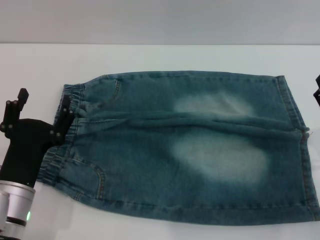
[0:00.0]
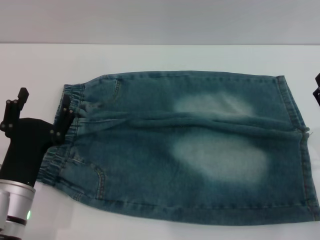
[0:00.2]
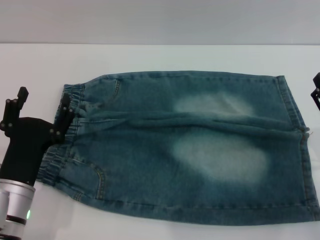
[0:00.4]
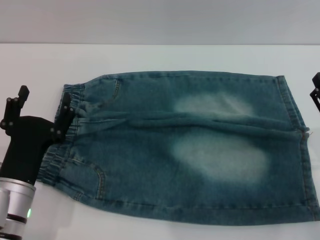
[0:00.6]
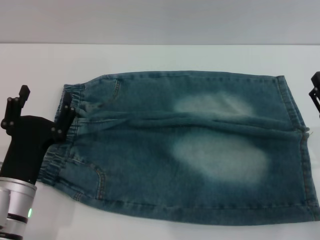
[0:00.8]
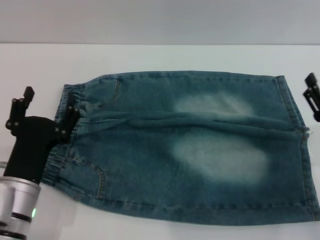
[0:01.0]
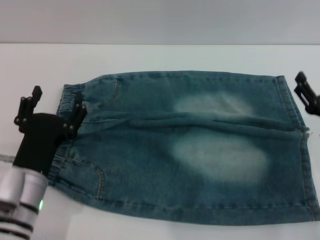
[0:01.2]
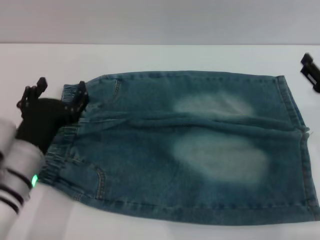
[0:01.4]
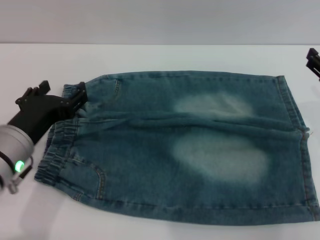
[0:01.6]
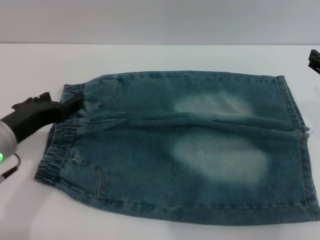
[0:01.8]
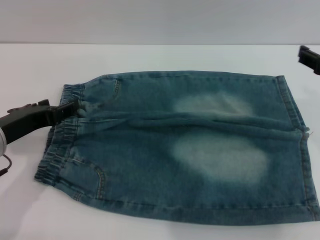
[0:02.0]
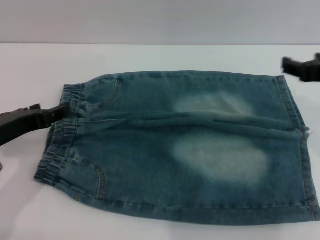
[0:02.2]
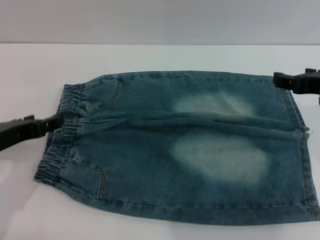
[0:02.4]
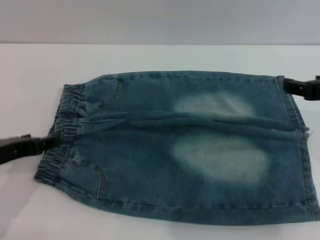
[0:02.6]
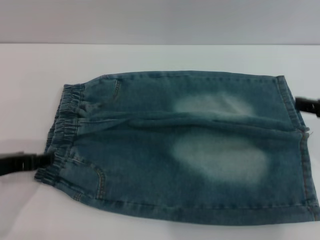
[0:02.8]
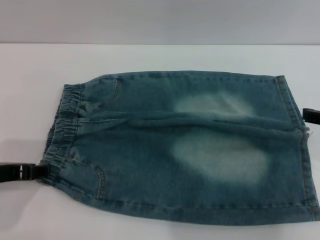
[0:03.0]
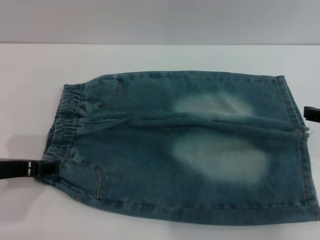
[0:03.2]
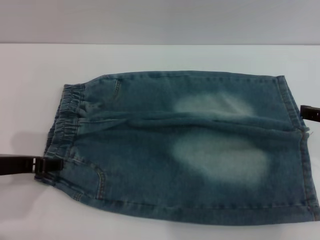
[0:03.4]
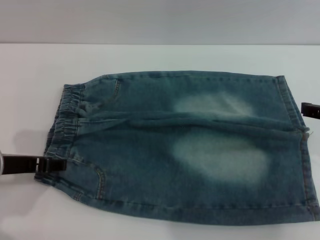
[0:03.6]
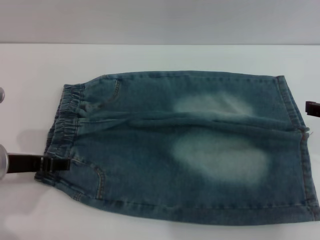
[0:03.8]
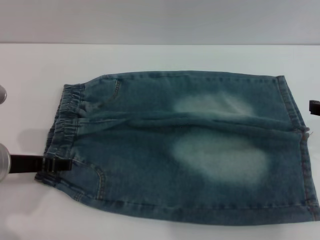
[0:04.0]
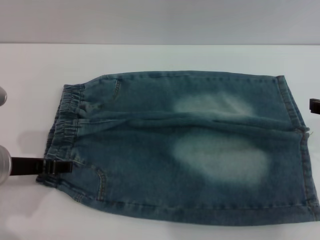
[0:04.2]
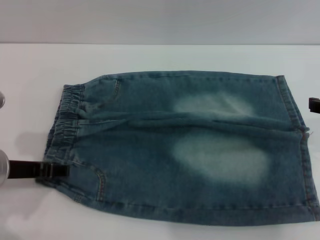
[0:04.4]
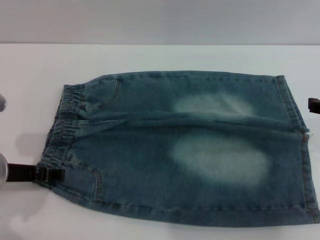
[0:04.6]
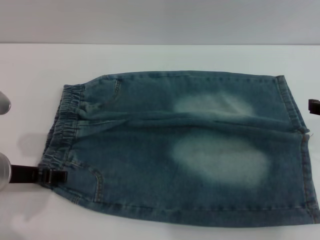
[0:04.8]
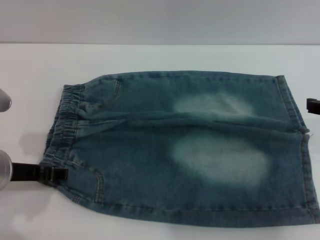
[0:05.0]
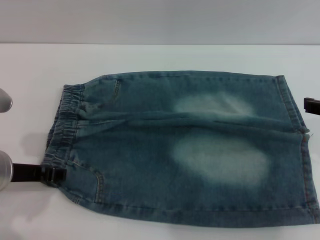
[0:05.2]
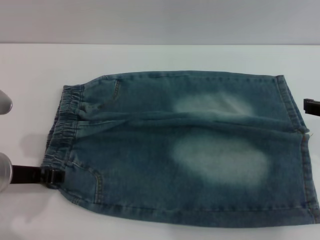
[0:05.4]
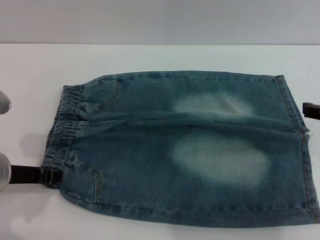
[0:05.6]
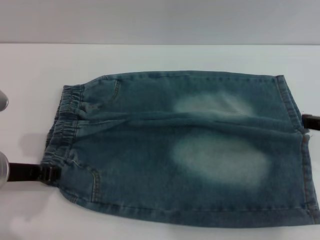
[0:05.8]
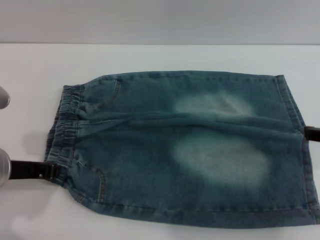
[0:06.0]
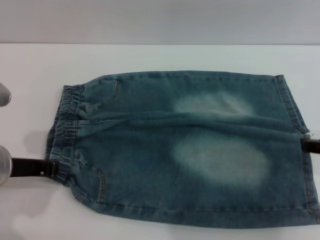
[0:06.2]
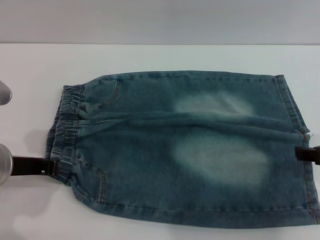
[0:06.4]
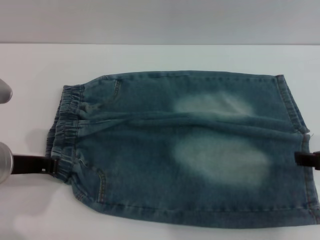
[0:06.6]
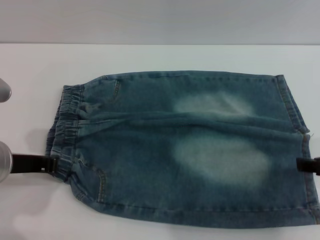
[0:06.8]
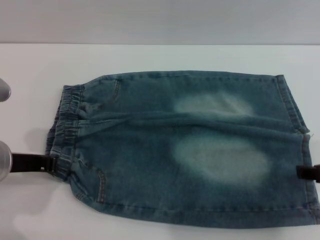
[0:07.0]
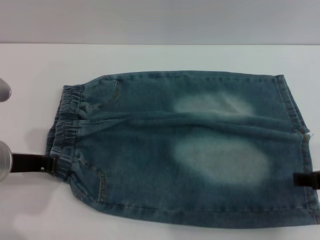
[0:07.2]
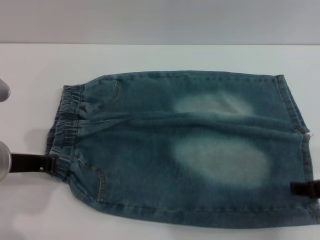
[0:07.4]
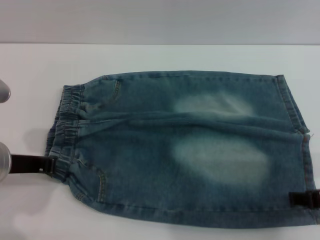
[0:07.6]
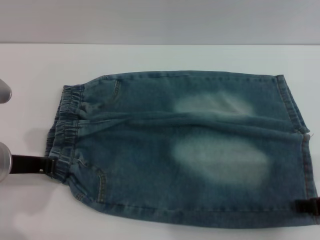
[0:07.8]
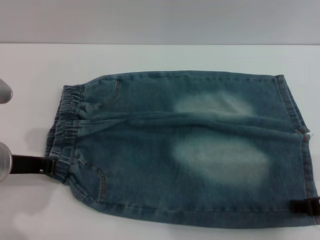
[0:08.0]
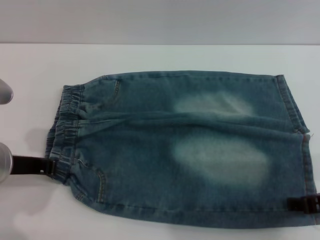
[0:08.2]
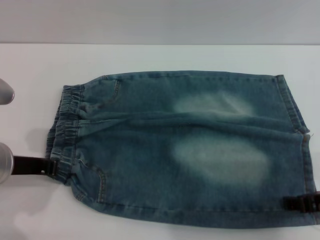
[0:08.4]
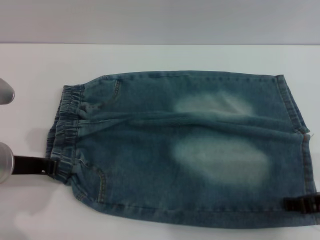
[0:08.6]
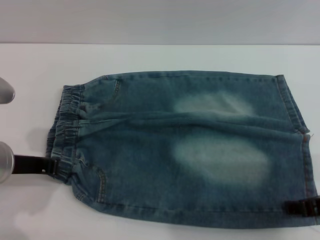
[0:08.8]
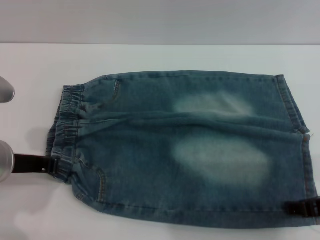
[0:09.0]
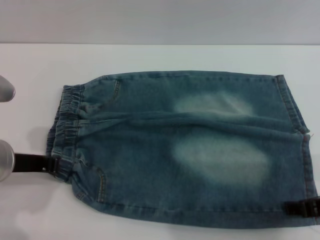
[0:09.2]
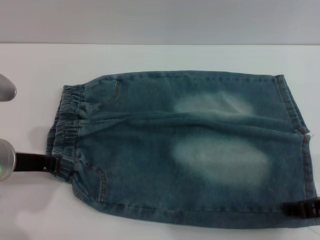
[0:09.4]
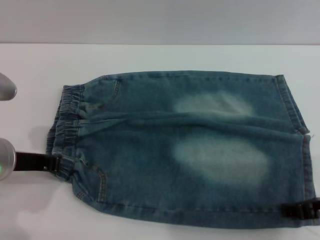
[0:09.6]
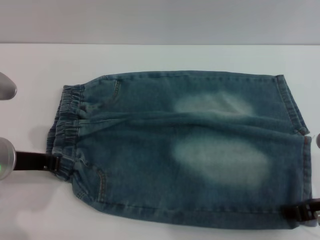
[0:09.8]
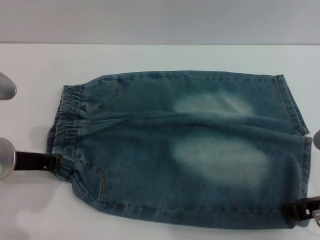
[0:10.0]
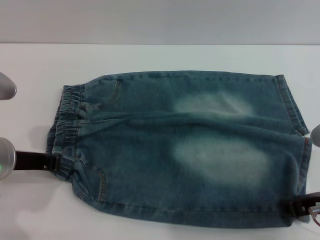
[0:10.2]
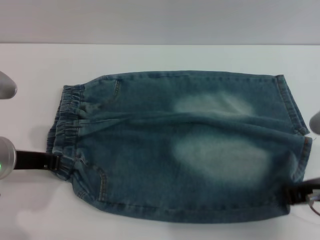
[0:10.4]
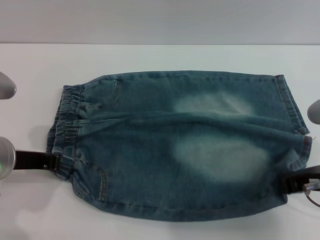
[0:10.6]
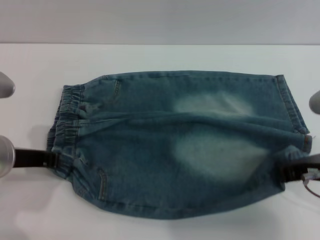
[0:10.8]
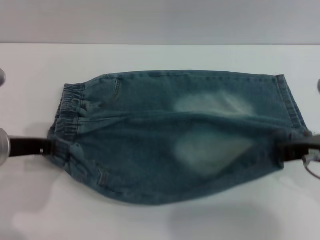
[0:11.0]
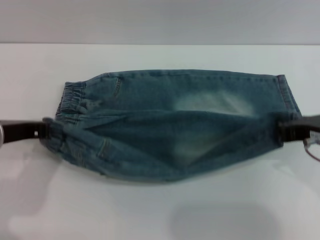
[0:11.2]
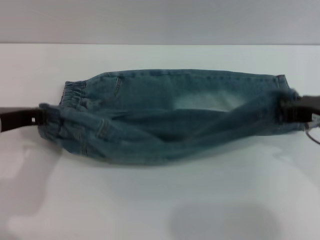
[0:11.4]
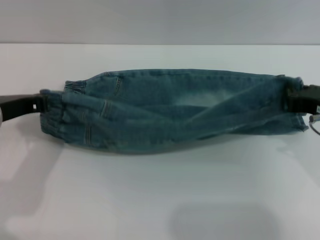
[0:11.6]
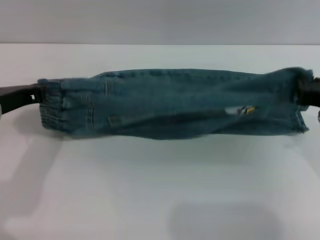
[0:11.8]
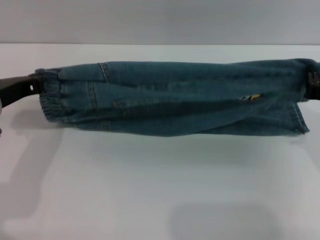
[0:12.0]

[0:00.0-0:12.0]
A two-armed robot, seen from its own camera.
0:00.0 to 0:01.6: The left gripper shifts some 10 cm upward.
0:01.6 to 0:03.0: The left gripper is displaced to the left by roughly 5 cm; the right gripper heads upward, covering roughly 5 cm.
0:03.0 to 0:04.4: The grippers stay close to where they were, moving slightly.
0:04.4 to 0:06.0: The left gripper closes.
0:06.0 to 0:07.6: The right gripper changes place by about 5 cm; the left gripper closes its fingers.
0:07.6 to 0:09.0: The grippers stay close to where they were, moving slightly.
0:09.0 to 0:10.4: The right gripper closes its fingers.
0:10.4 to 0:12.0: The right gripper shifts by approximately 5 cm.

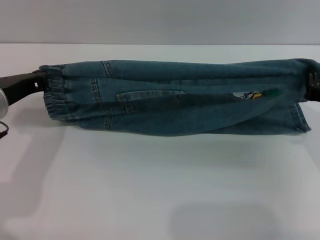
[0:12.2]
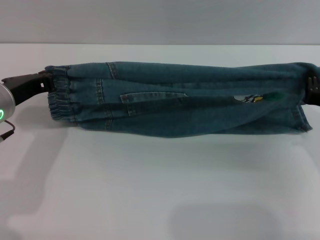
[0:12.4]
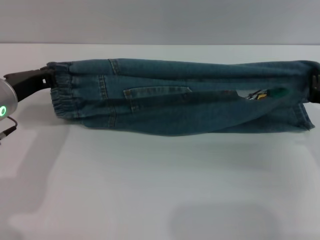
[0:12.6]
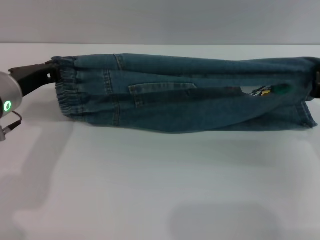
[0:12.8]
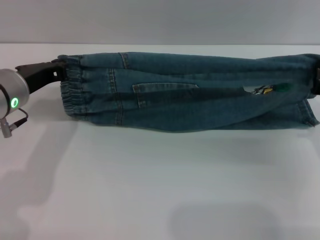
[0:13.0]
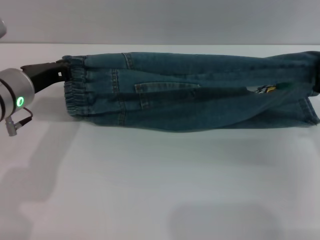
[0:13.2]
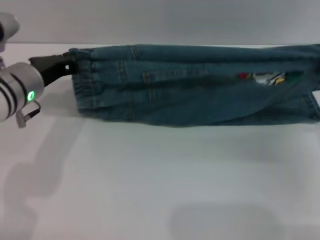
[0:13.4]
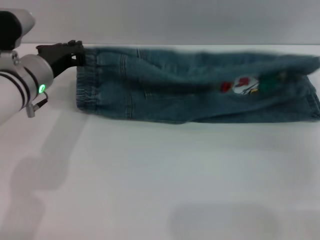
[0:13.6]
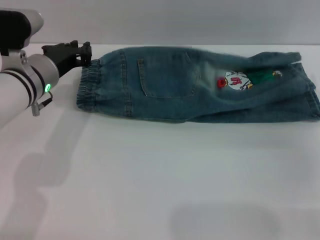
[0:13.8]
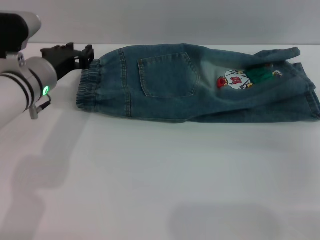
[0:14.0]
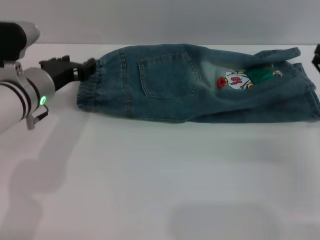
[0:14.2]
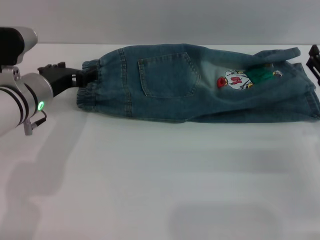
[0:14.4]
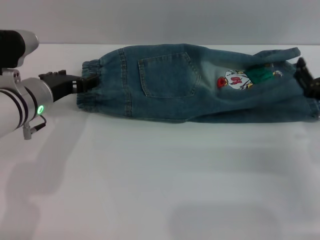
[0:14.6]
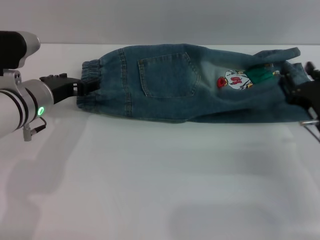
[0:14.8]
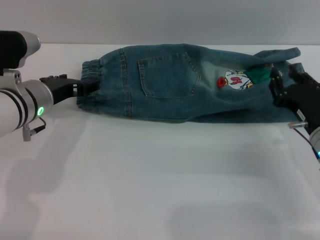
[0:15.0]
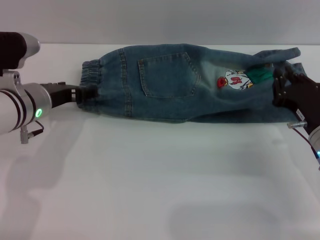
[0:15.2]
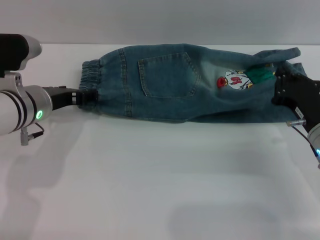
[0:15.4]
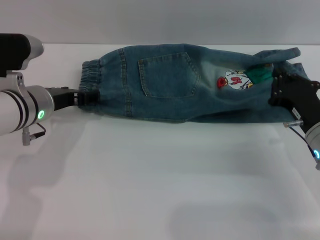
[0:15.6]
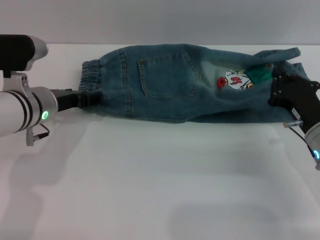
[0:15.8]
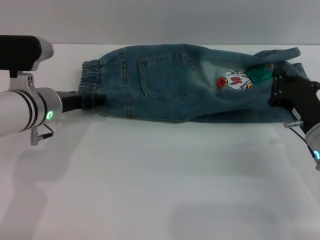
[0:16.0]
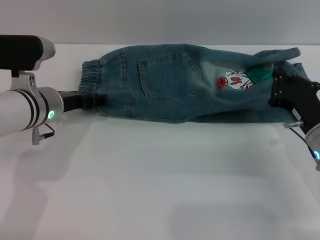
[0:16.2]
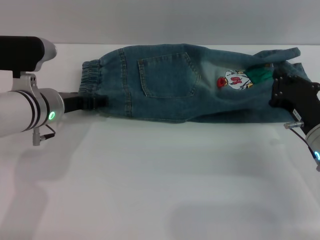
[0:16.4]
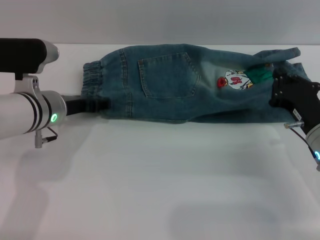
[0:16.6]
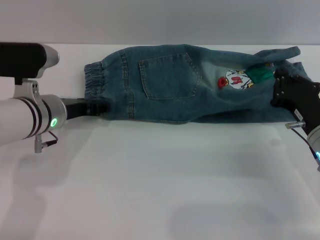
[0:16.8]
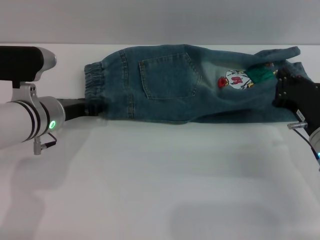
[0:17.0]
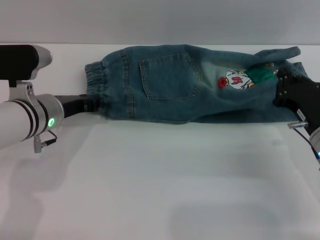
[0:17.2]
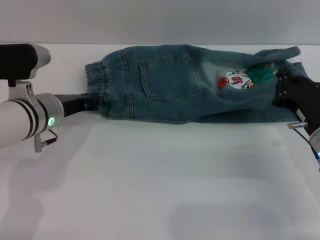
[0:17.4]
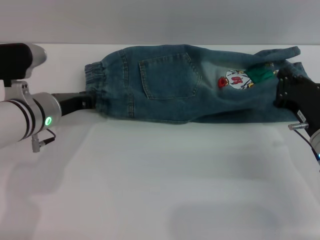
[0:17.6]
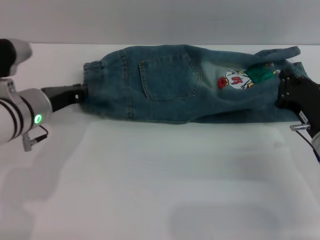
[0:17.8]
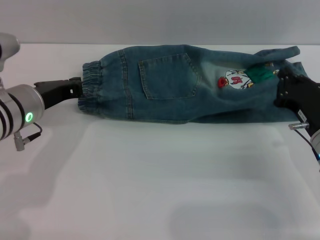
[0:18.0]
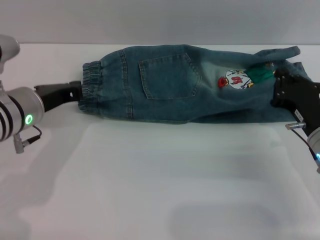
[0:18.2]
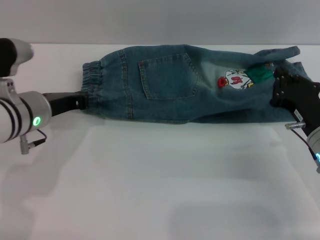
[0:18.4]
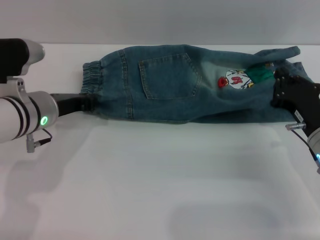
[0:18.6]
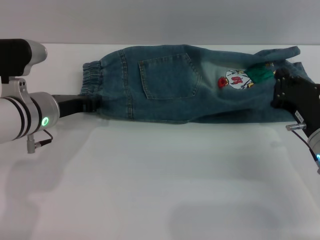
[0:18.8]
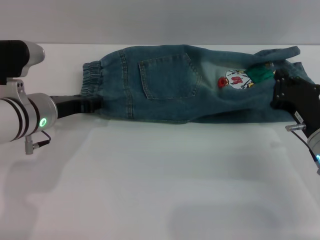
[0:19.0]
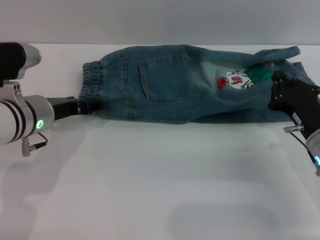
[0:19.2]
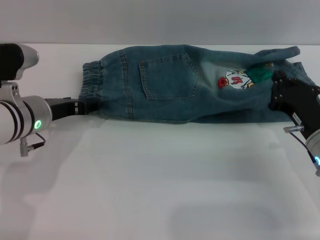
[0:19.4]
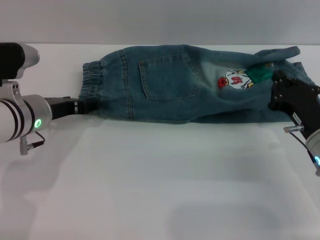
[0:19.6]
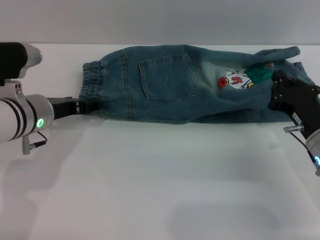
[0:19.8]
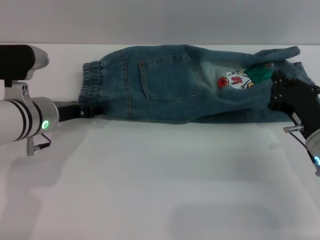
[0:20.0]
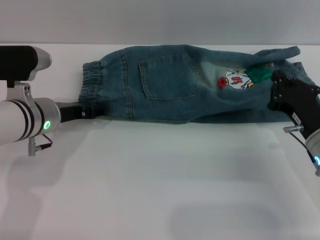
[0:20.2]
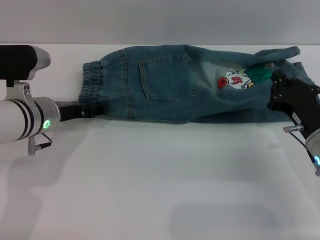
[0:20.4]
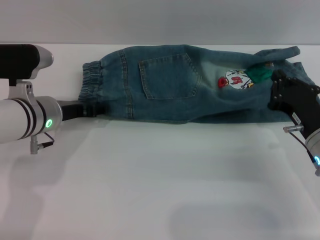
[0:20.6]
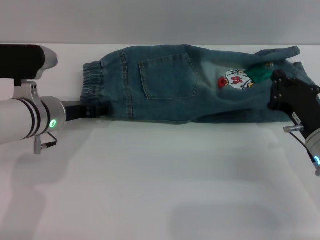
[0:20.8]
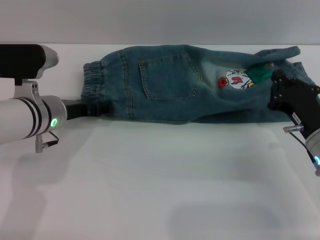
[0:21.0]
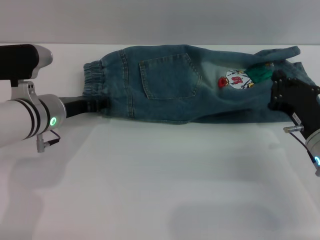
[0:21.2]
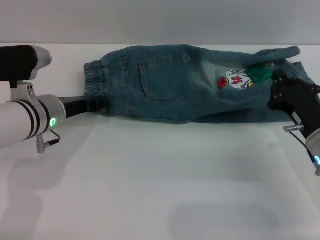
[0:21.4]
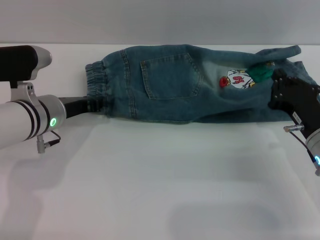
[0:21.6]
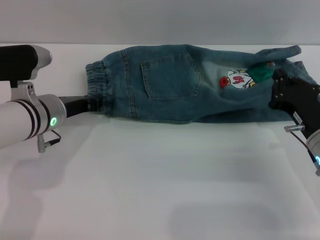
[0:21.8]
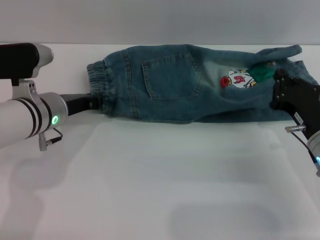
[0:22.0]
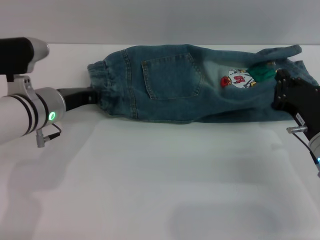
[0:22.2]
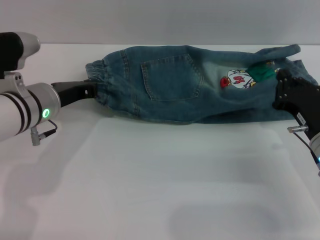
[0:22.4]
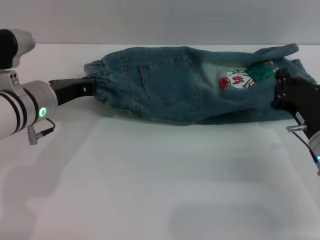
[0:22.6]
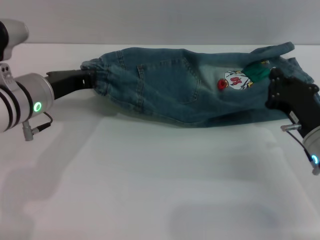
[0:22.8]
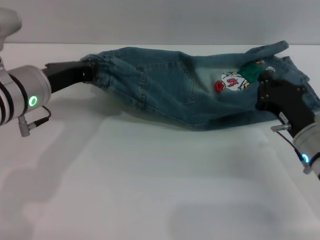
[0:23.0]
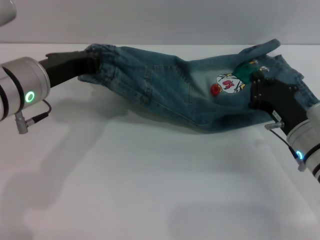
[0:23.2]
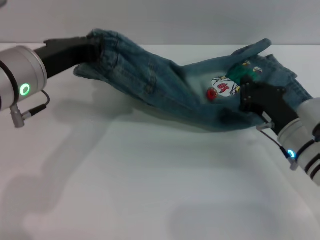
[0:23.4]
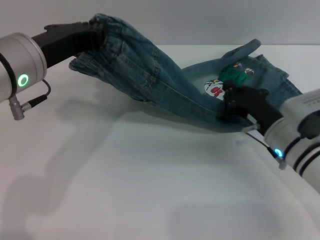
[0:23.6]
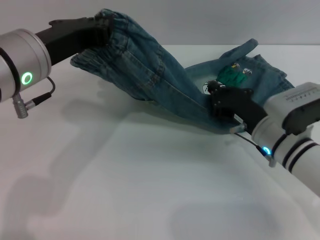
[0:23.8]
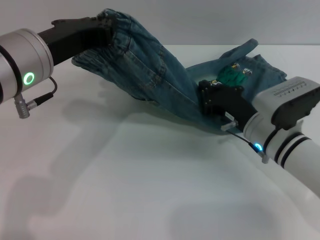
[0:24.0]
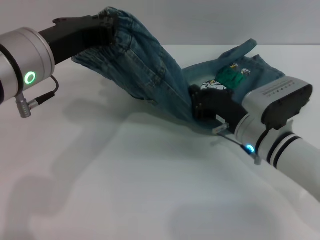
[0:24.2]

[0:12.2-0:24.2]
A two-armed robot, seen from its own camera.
0:12.2 to 0:13.8: The left gripper travels forward by about 5 cm. The right gripper shifts roughly 10 cm forward and to the right.
0:13.8 to 0:15.2: The left gripper opens its fingers, while the right gripper travels to the left by approximately 5 cm, and opens and closes again.
0:15.2 to 0:16.6: The right gripper closes up.
0:16.6 to 0:18.2: The left gripper changes place by about 5 cm, and closes up.
0:18.2 to 0:19.8: The left gripper opens up.
0:19.8 to 0:21.2: The grippers make only small movements.
0:21.2 to 0:22.6: The left gripper closes its fingers.
0:22.6 to 0:24.2: The left gripper travels upward and backward by approximately 10 cm; the right gripper shifts approximately 10 cm to the left.
